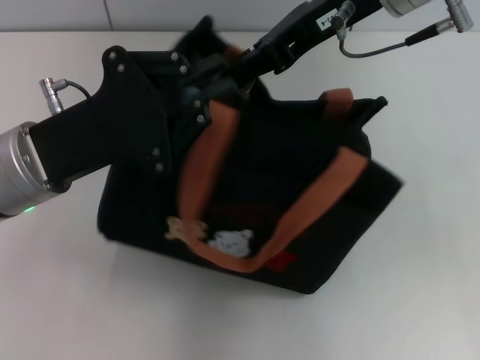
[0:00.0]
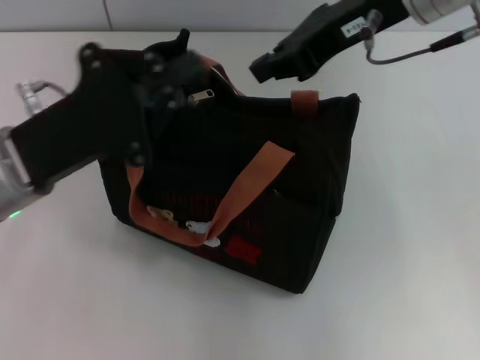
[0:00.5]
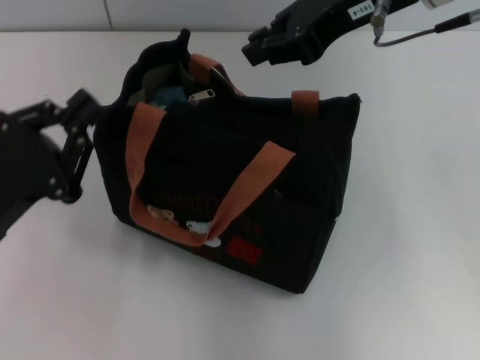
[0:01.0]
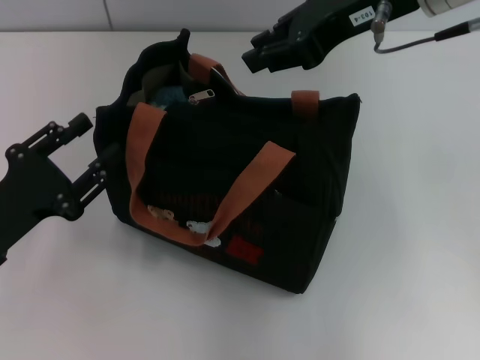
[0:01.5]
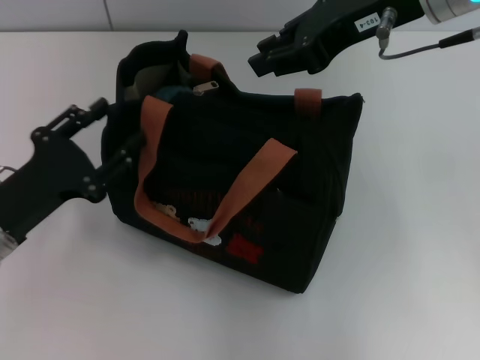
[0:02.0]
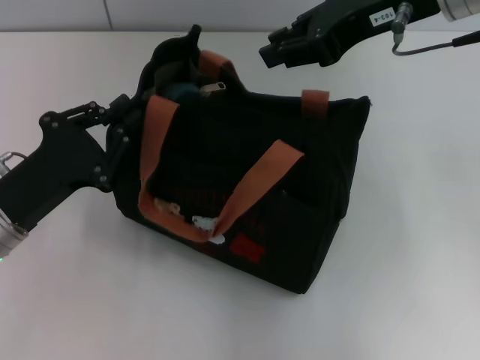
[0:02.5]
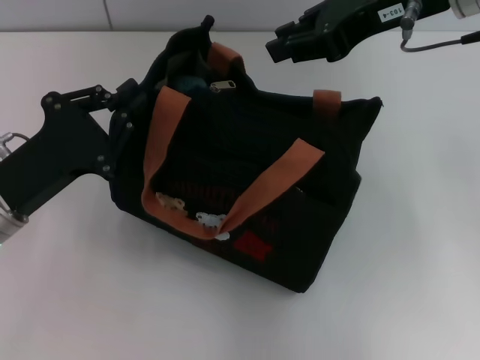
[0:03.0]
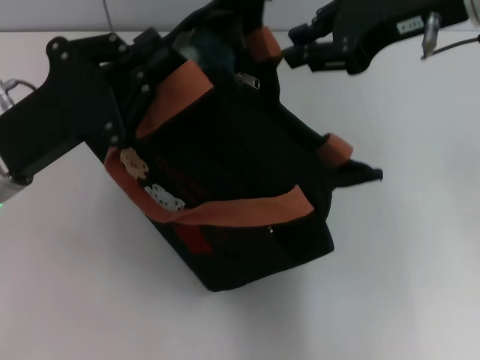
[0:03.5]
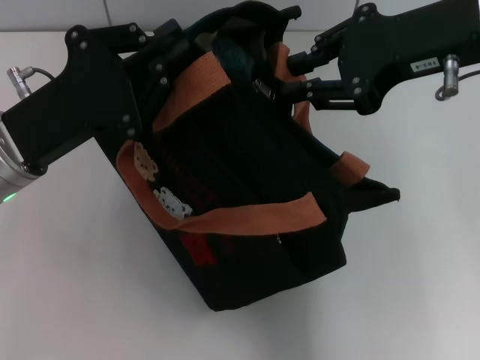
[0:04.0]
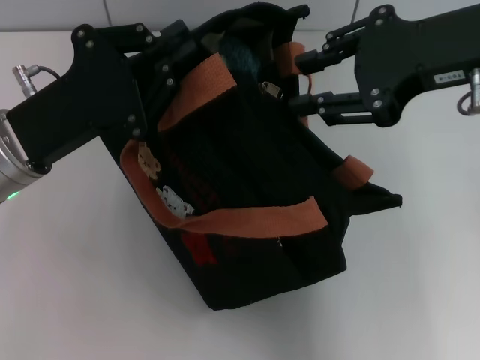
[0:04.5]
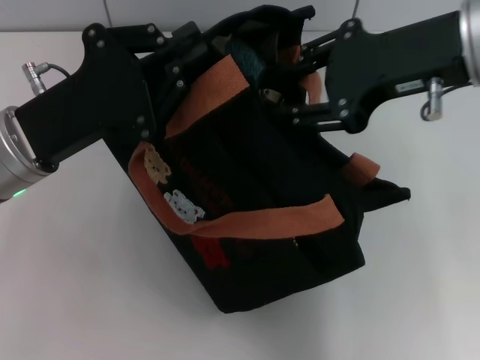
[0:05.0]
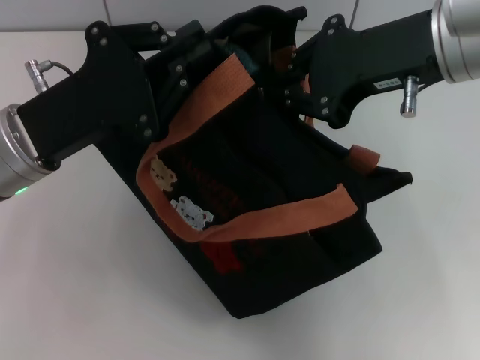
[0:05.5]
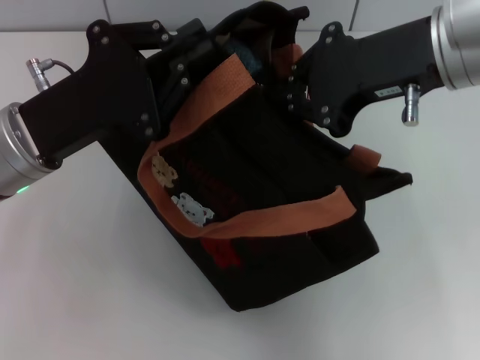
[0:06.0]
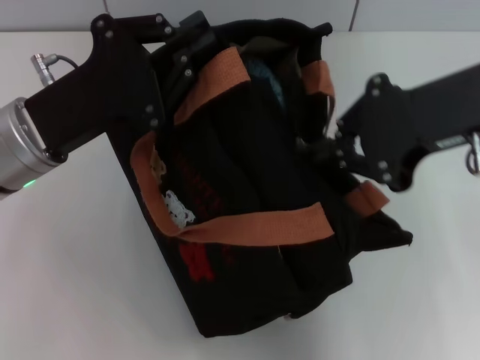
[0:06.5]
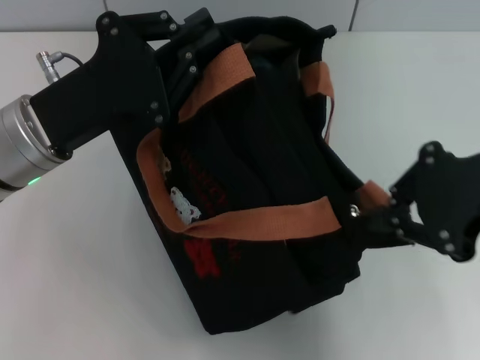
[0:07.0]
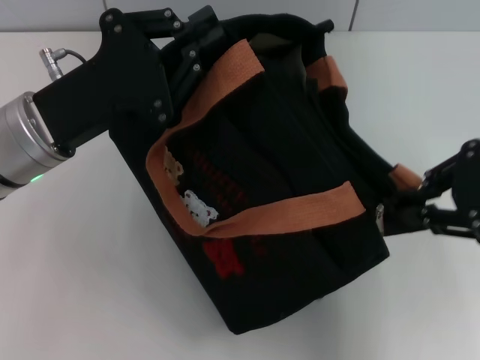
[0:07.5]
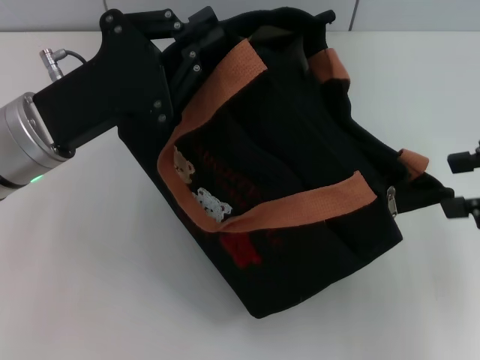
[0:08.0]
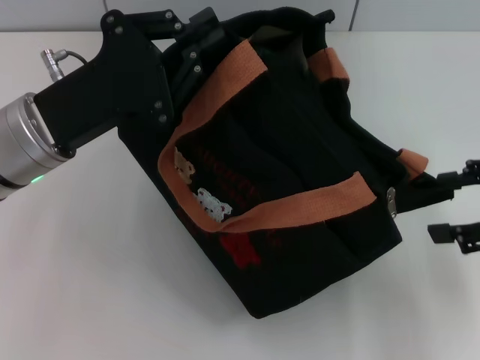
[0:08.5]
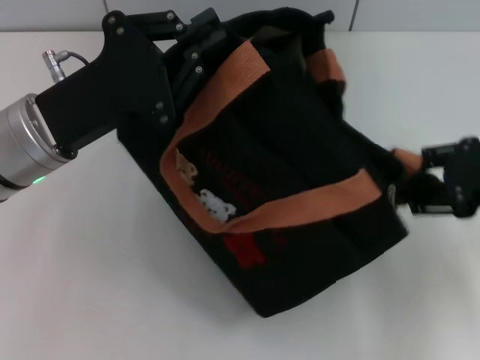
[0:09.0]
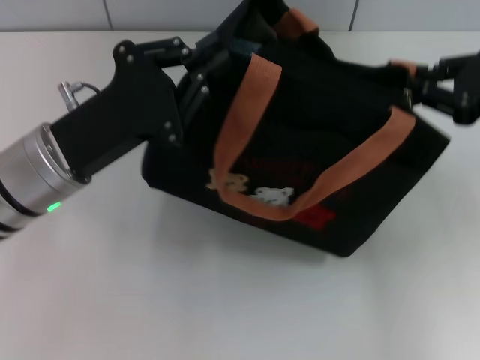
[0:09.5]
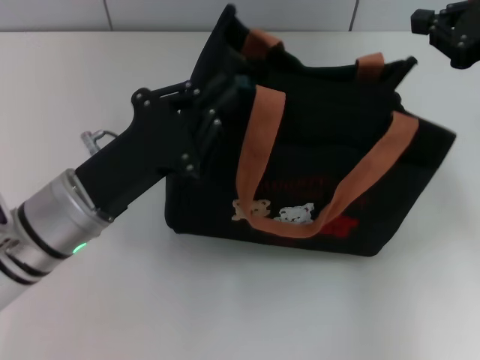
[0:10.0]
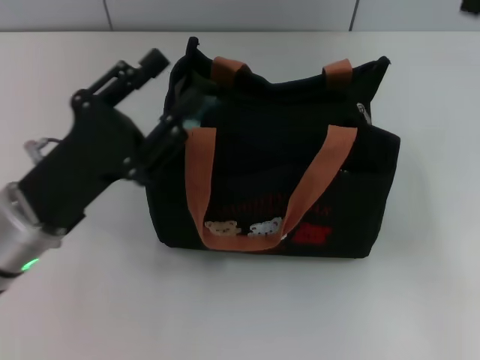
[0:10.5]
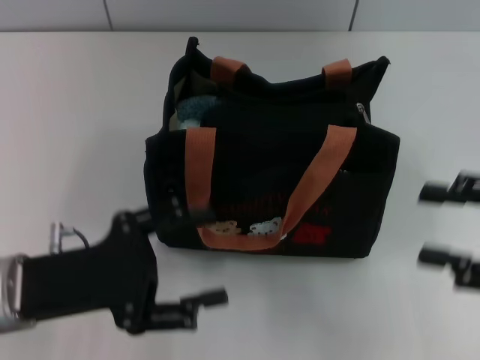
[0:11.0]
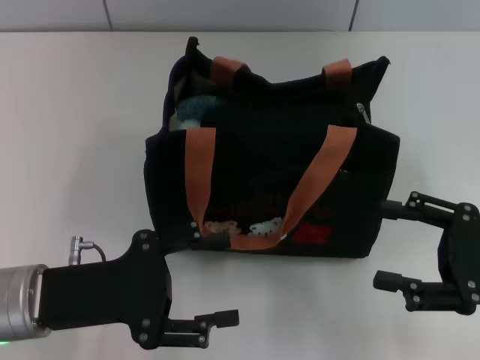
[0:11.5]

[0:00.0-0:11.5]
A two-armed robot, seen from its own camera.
Step, 0.0 to 7.5 s: Pull open the zipper with your right hand.
Step, 8.0 to 10.0 s: Grab the bag with your left hand.
0.0 to 2.0 s: The left gripper goes about 10 cm downward and to the left, and opens up.
2.0 to 4.0 s: The right gripper shifts by about 5 cm. The left gripper goes approximately 5 cm upward, and closes up.
4.0 to 6.0 s: The right gripper closes.
6.0 to 7.5 s: The right gripper goes roughly 10 cm to the right and backward.
7.5 to 9.5 s: The right gripper goes about 5 cm forward, and opens, then closes once more.
9.5 to 11.5 s: The left gripper moves backward, some 10 cm, and opens. Meanwhile the right gripper moves backward and downward, about 15 cm, and opens.

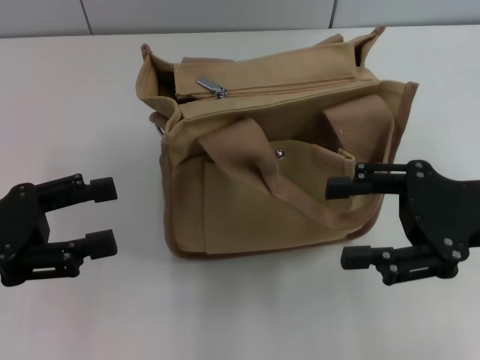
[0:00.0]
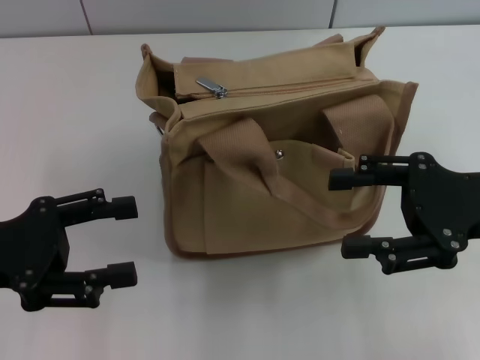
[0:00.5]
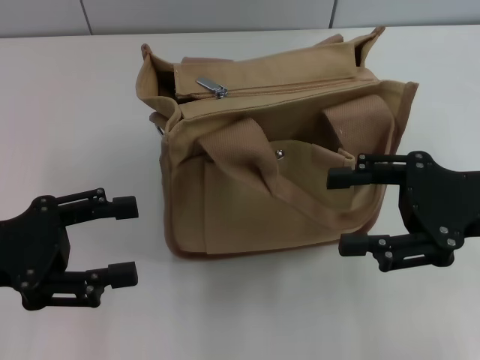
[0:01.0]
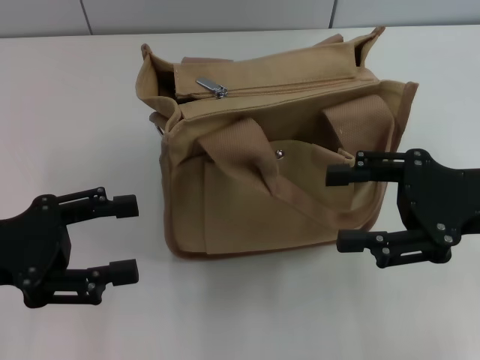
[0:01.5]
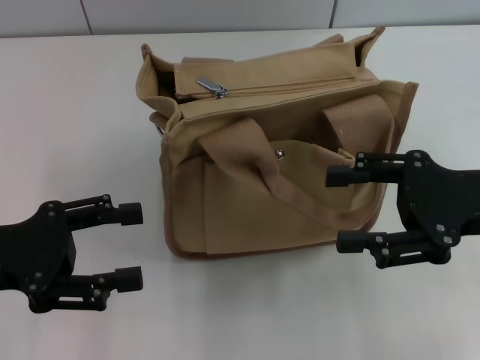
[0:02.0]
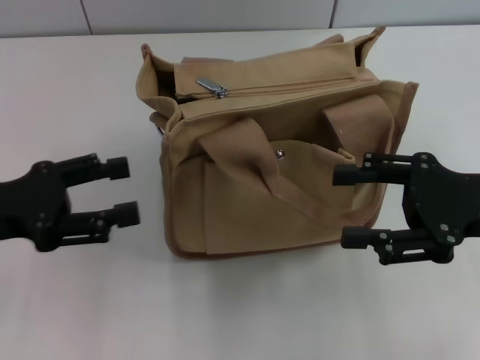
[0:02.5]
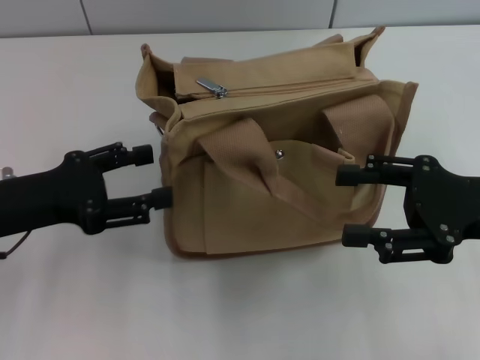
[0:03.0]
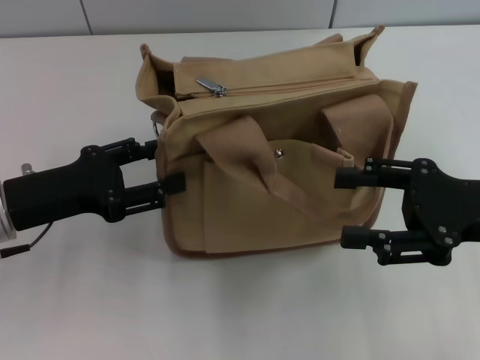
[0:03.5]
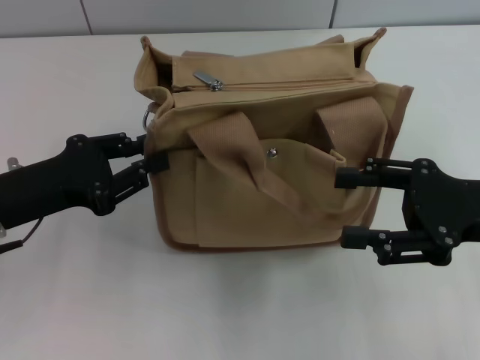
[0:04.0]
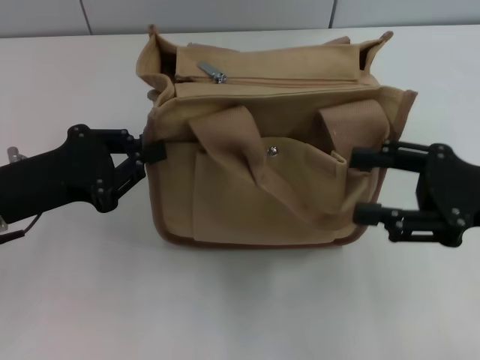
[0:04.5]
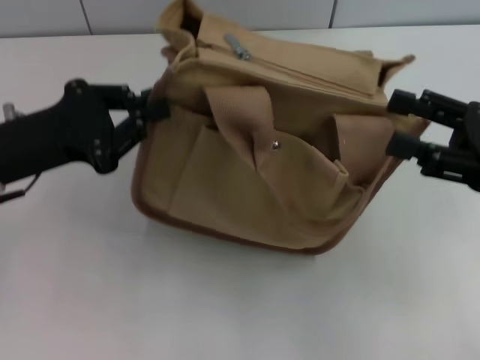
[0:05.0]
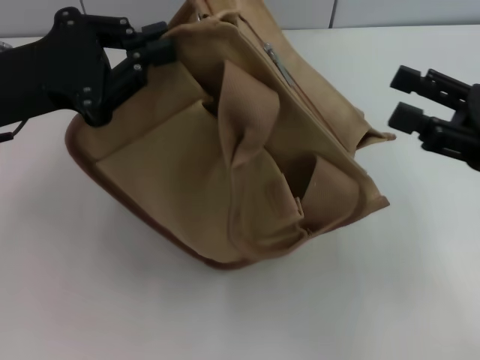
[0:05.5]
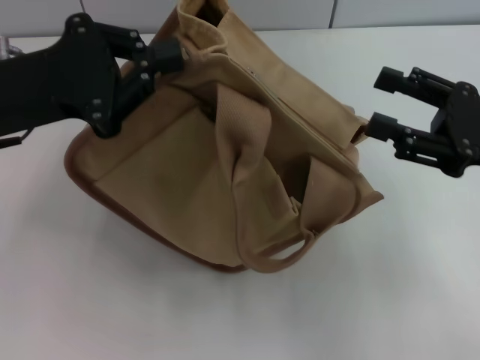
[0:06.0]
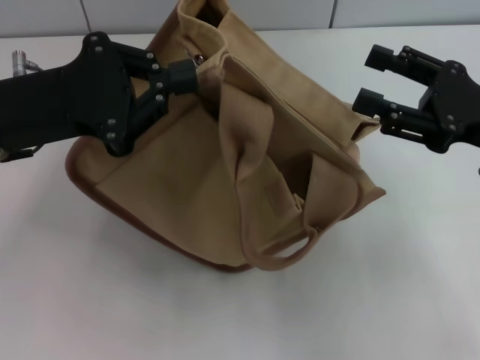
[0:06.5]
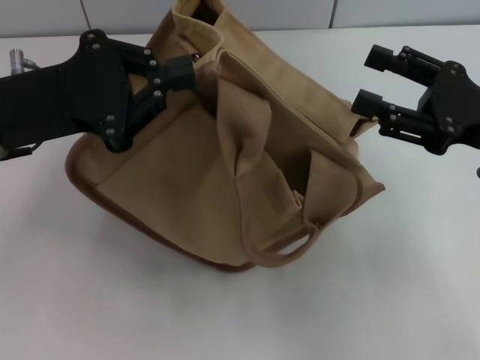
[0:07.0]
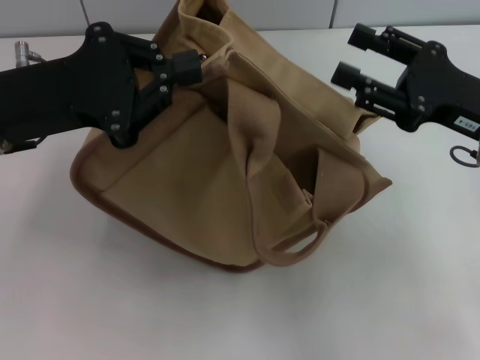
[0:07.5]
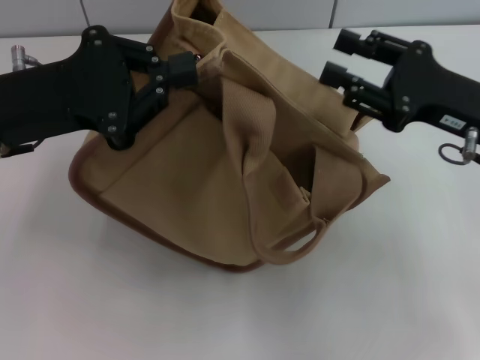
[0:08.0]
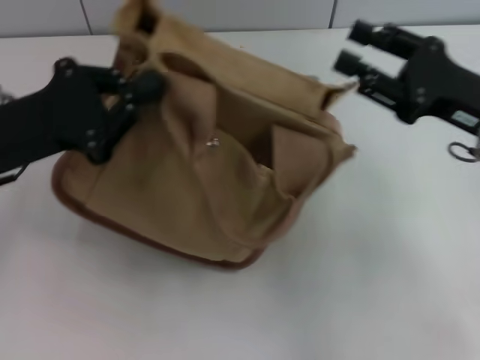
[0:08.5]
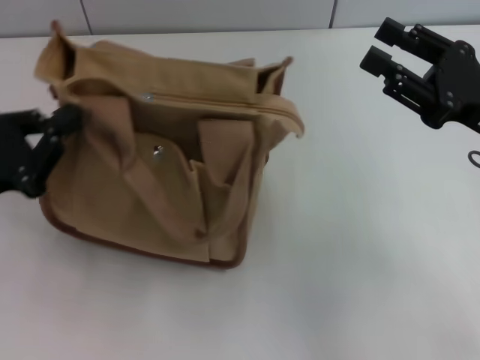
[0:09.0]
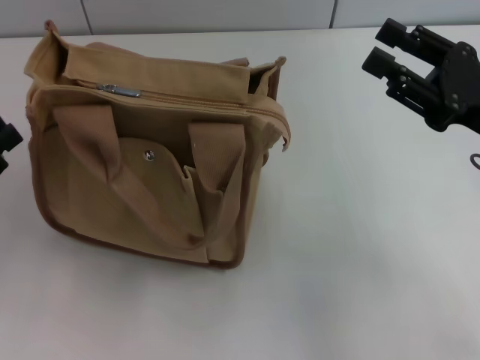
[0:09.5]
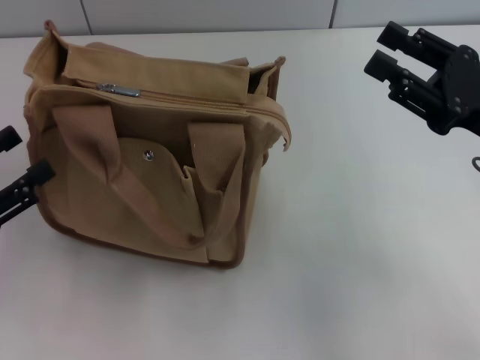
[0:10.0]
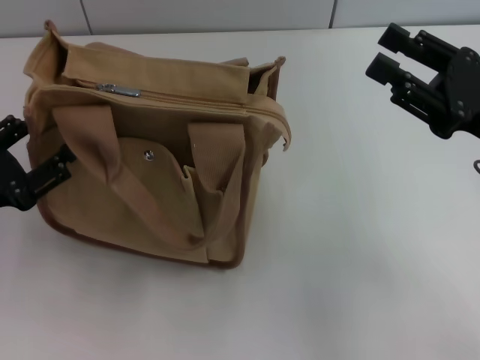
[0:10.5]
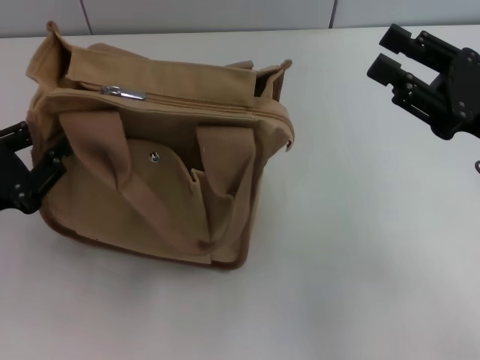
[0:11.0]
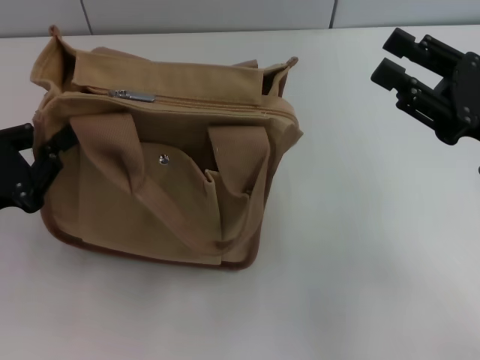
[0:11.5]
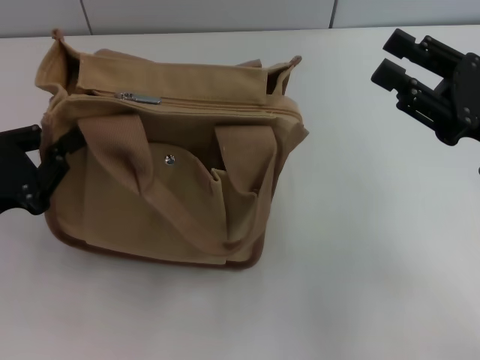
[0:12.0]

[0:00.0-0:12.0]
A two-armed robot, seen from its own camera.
0.0 to 2.0 s: The grippers make only small movements.
2.0 to 4.0 s: The left gripper ends up roughly 5 cm from where it was, and closes up.
4.0 to 6.0 s: The left gripper heads upward, covering about 10 cm, and closes.
6.0 to 8.0 s: The right gripper moves about 5 cm.
8.0 to 10.0 s: The left gripper shifts about 15 cm backward, to the left and downward, and opens.
10.0 to 12.0 s: The left gripper closes.

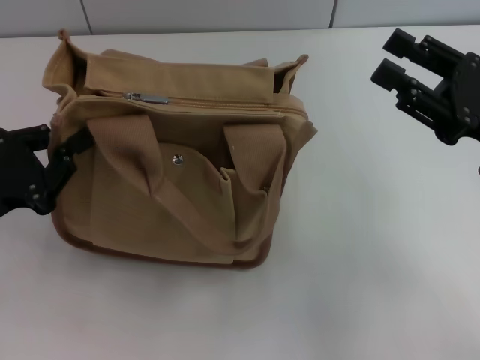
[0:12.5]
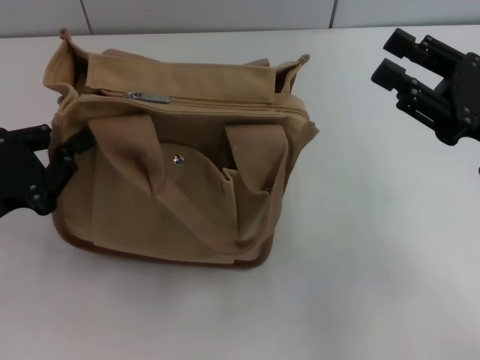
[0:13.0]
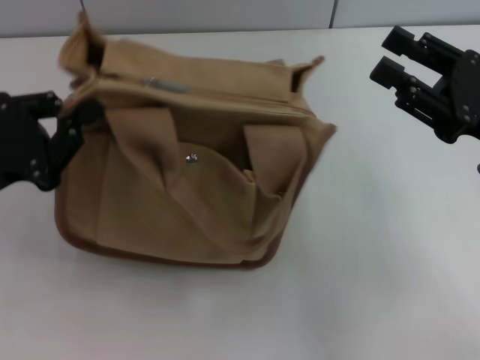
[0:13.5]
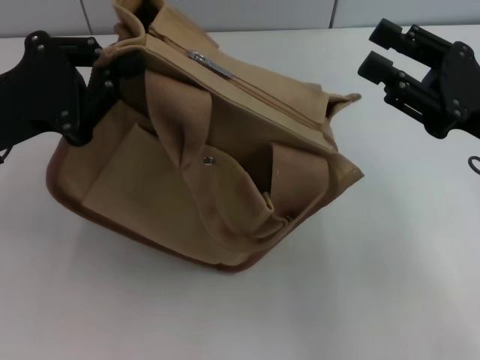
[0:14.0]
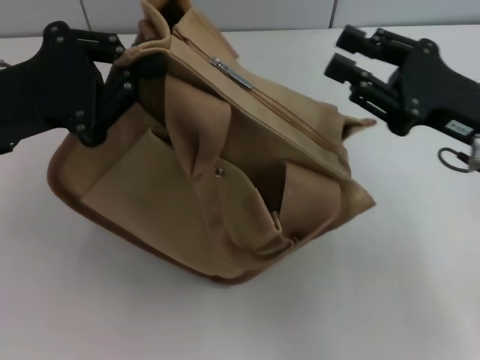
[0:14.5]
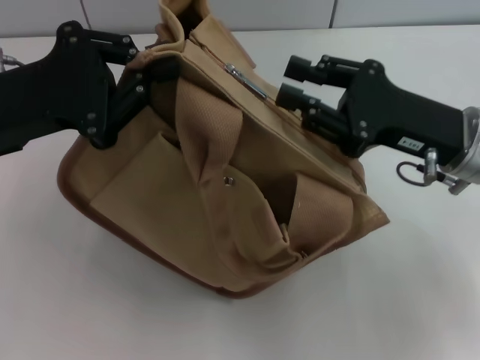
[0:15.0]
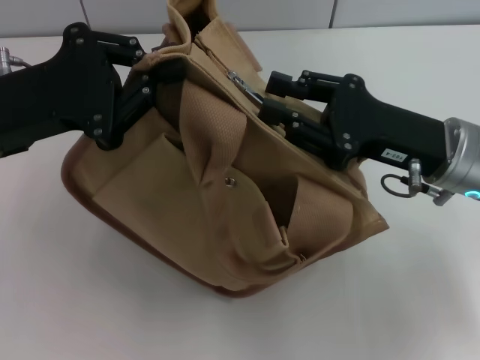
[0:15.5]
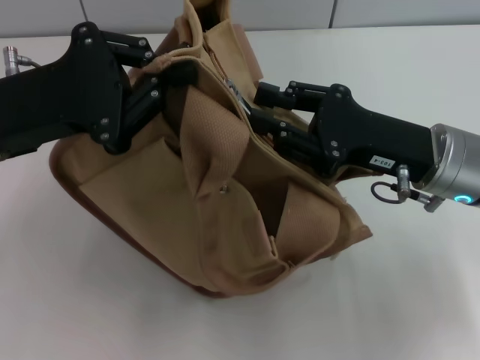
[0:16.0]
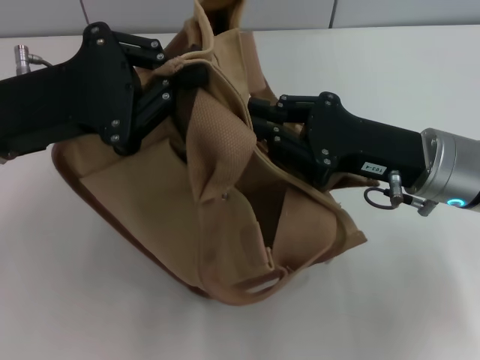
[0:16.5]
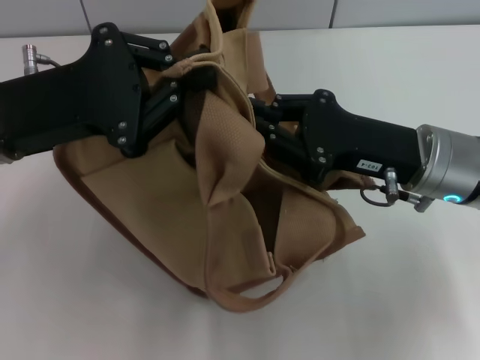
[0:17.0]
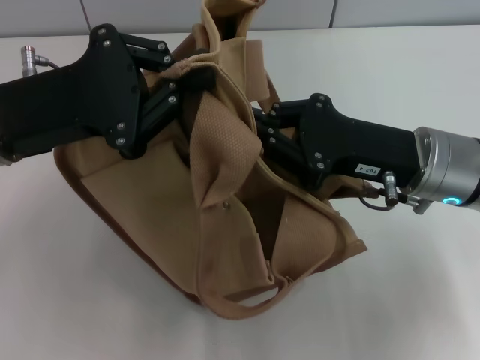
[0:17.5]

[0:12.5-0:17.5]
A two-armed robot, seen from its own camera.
12.5 to 15.0 s: The left gripper travels upward, forward and to the right by some 10 cm, while the right gripper goes roughly 5 cm to the left.
